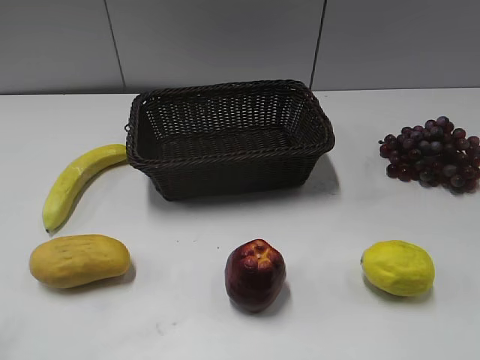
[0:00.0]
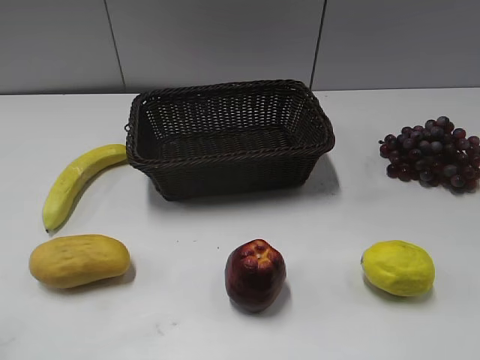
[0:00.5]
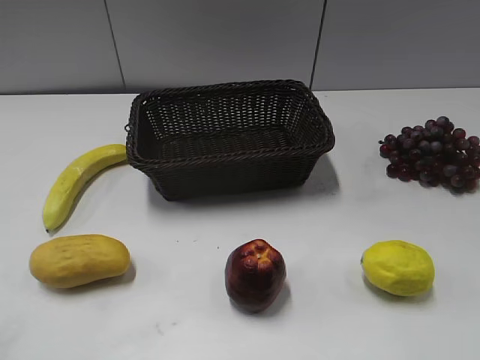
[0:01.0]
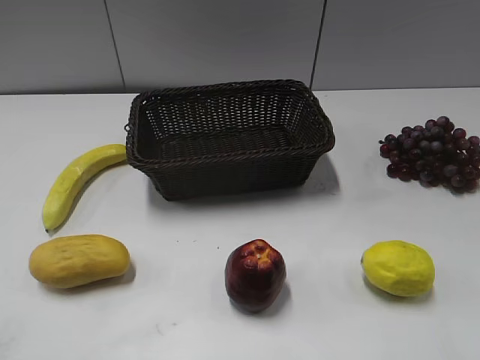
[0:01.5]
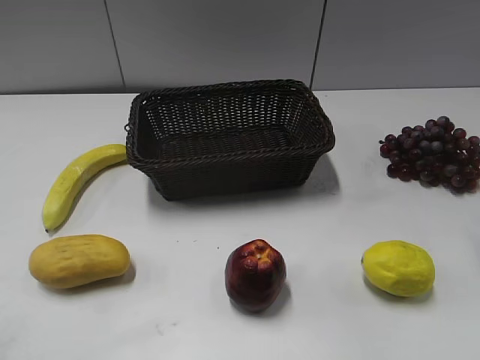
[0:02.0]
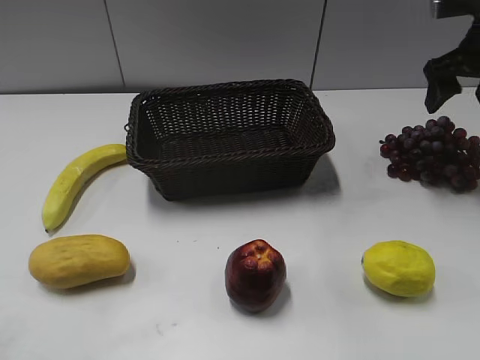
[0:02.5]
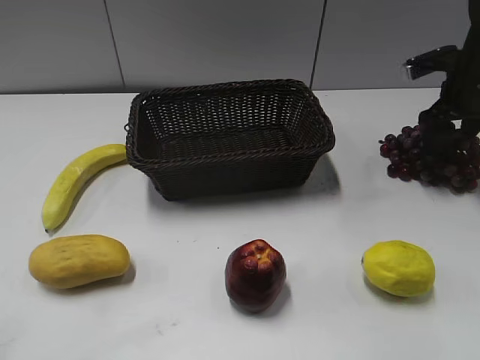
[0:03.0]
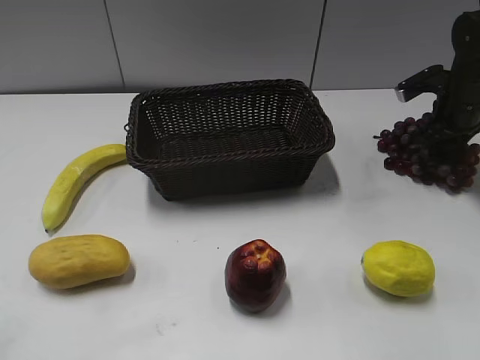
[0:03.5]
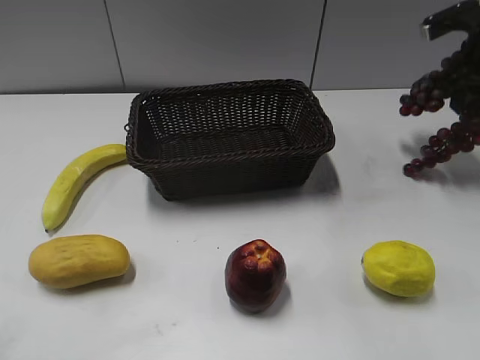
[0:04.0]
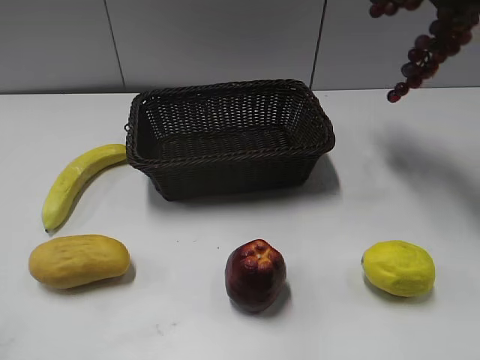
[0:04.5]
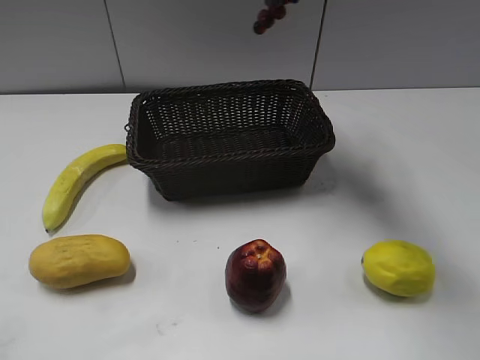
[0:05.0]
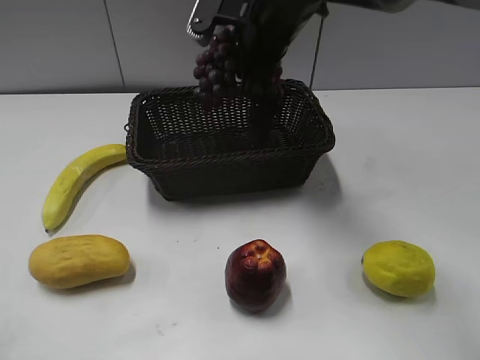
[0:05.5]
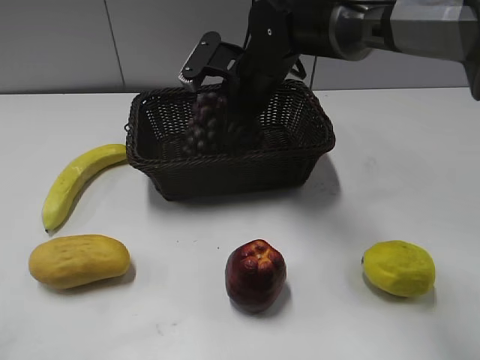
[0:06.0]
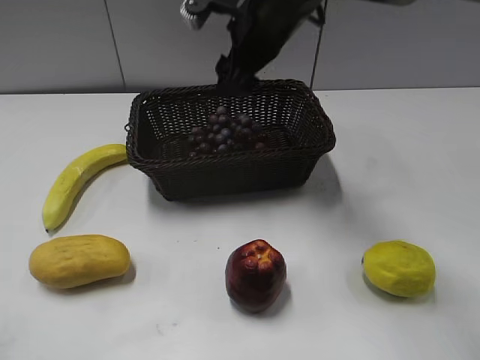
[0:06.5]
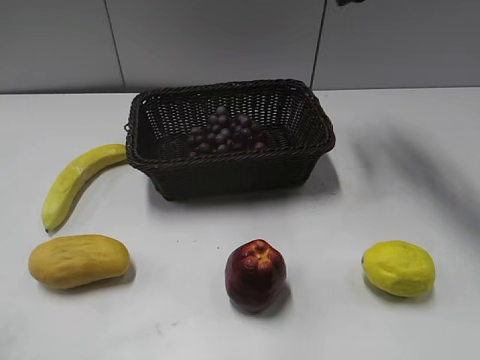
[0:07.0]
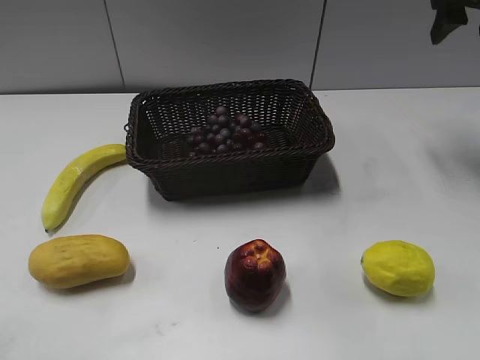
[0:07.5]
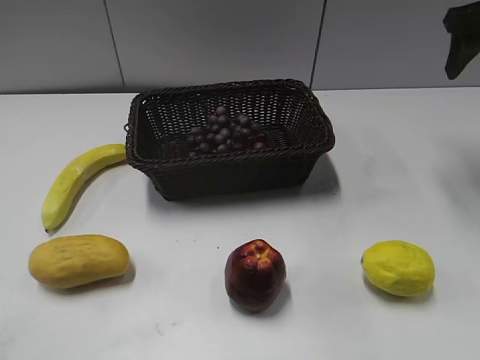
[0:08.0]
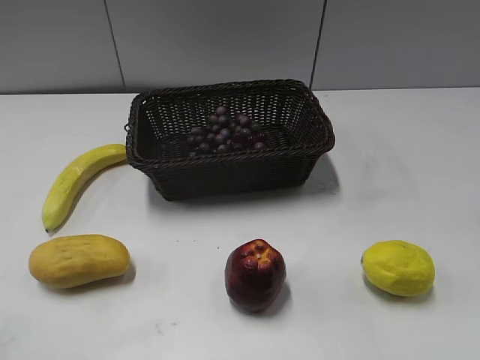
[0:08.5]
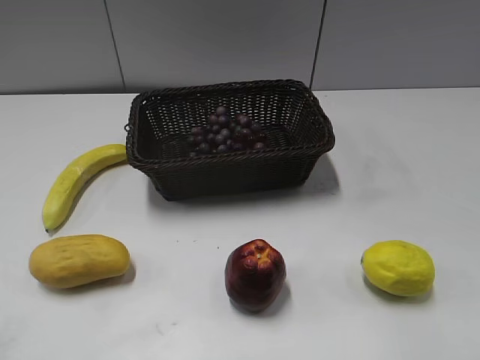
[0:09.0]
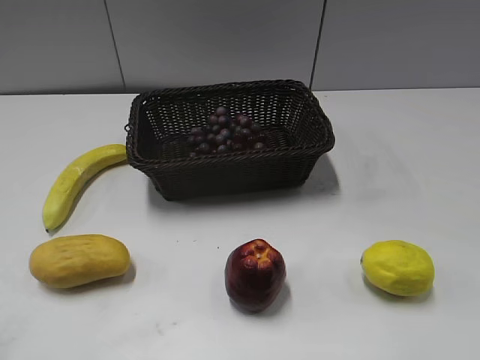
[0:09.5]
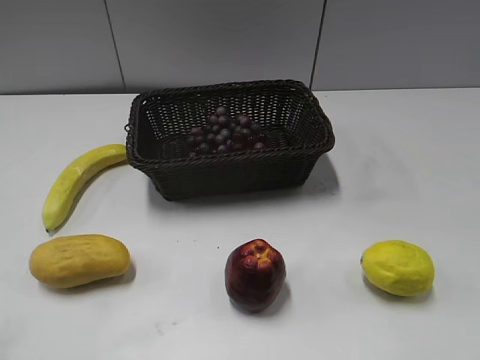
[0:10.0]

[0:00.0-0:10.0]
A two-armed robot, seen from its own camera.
Step, 0:02.5 to 0:03.5: Grasp the grape with right gripper.
Step, 0:04.0 to 0:06.0: Place the grape in the basket with right gripper.
0:02.0 to 0:04.0: The right gripper travels forward by roughly 20 cm, and closes its fingers.
0:04.0 to 0:06.0: The right gripper goes roughly 30 cm to the left, and opens.
0:06.0 to 0:08.0: The right gripper travels to the right and upward by about 30 cm.
0:08.0 to 0:10.0: The right gripper shifts some 35 cm backward.
